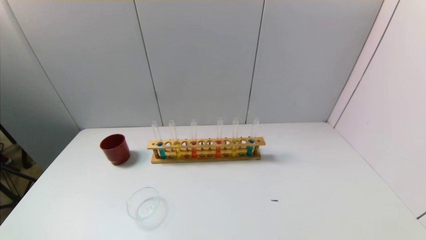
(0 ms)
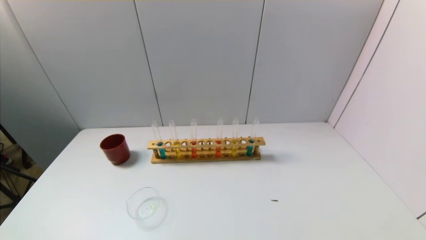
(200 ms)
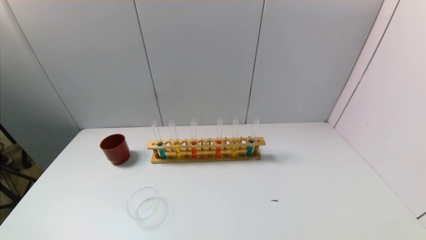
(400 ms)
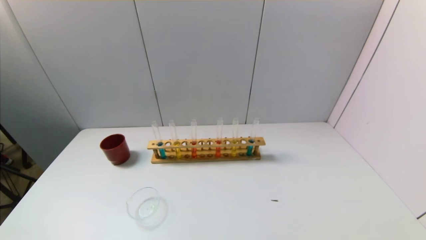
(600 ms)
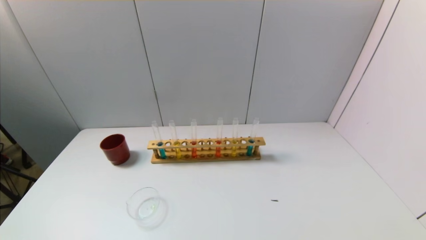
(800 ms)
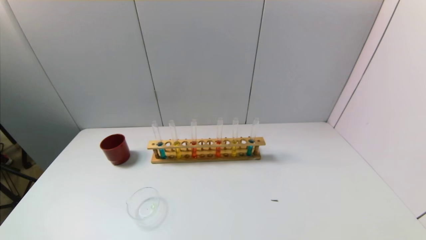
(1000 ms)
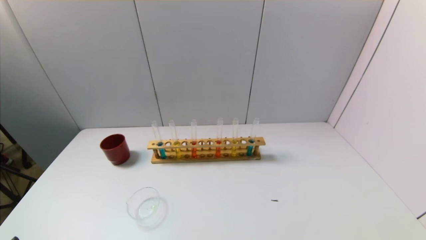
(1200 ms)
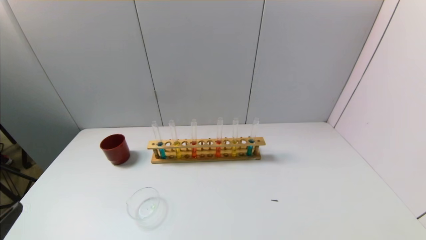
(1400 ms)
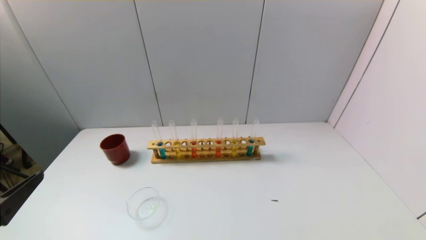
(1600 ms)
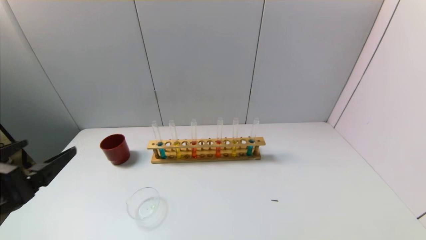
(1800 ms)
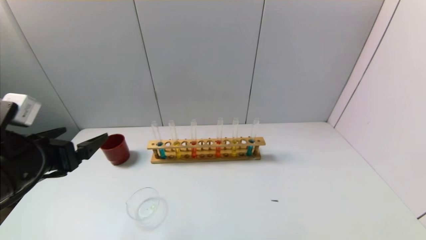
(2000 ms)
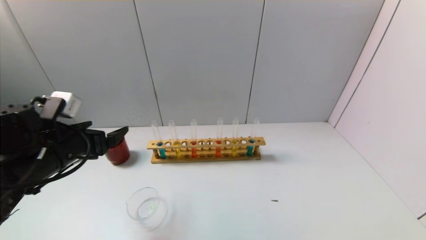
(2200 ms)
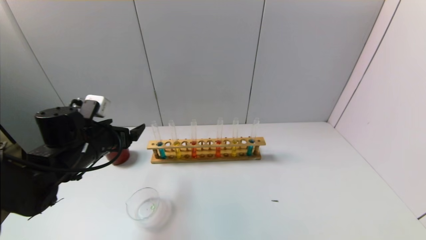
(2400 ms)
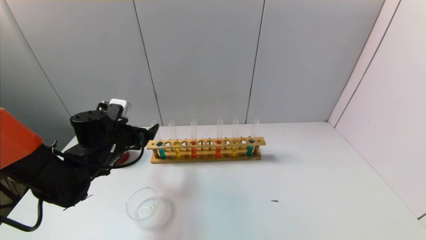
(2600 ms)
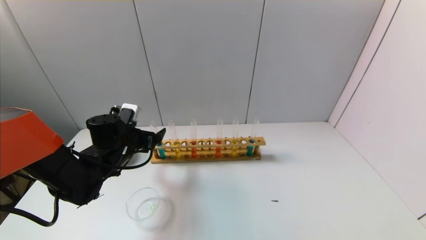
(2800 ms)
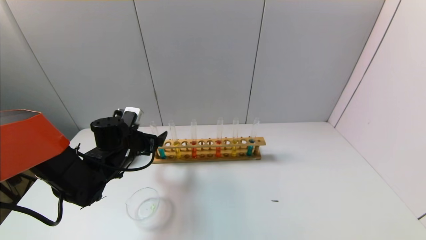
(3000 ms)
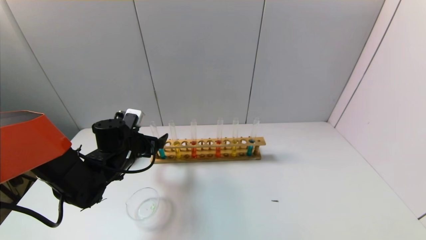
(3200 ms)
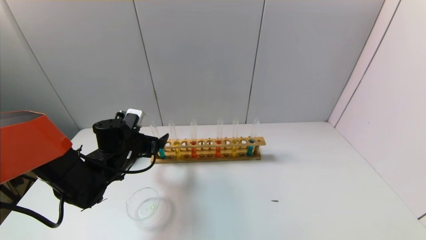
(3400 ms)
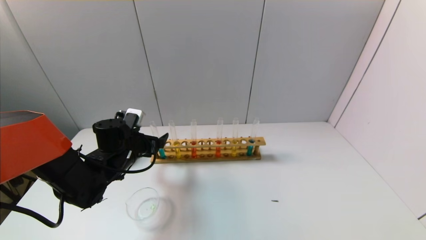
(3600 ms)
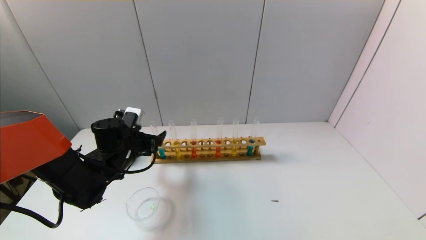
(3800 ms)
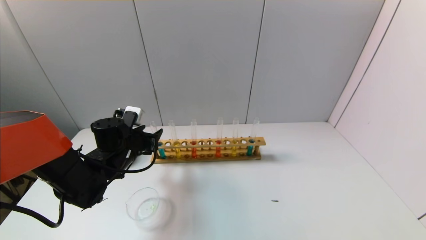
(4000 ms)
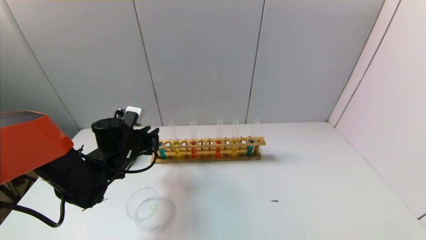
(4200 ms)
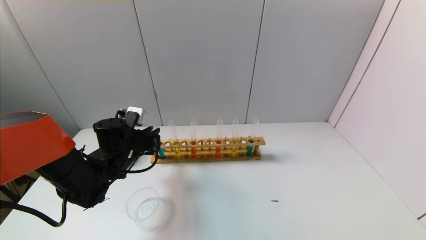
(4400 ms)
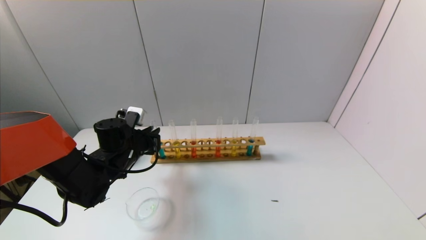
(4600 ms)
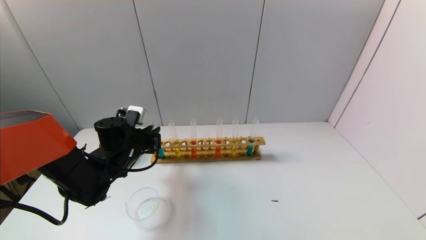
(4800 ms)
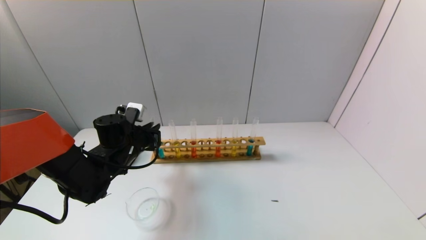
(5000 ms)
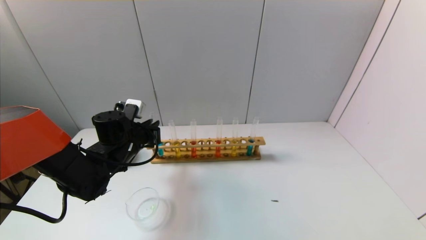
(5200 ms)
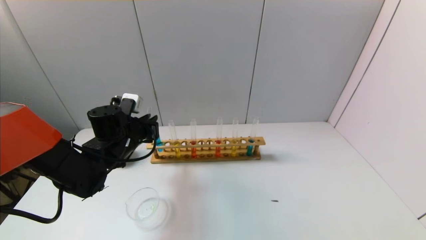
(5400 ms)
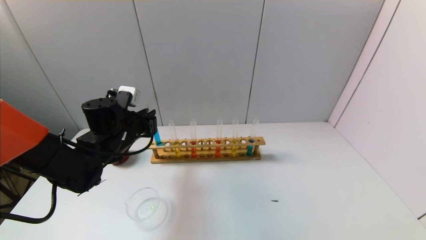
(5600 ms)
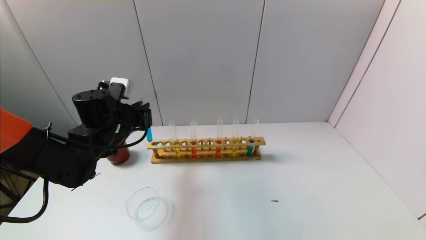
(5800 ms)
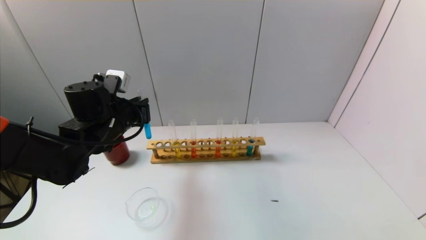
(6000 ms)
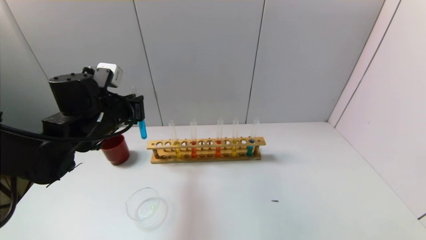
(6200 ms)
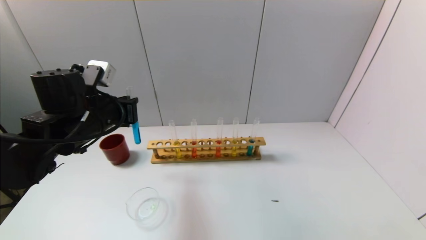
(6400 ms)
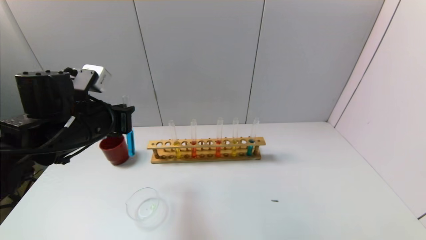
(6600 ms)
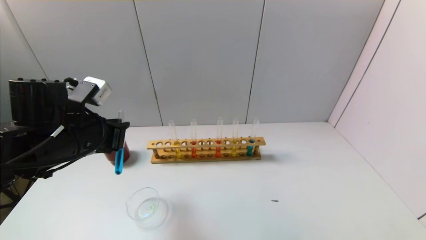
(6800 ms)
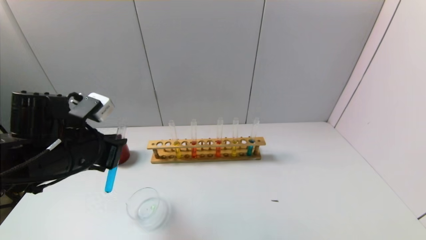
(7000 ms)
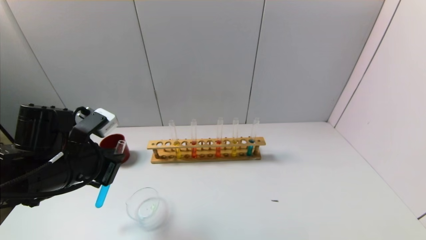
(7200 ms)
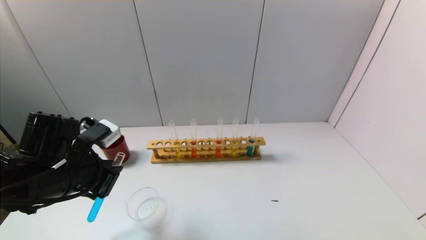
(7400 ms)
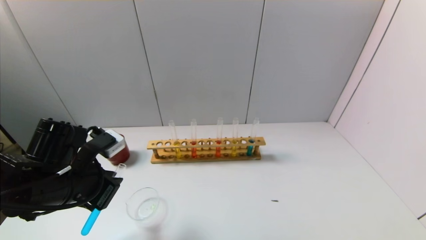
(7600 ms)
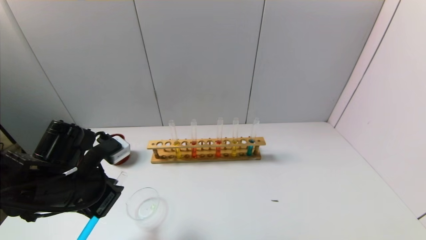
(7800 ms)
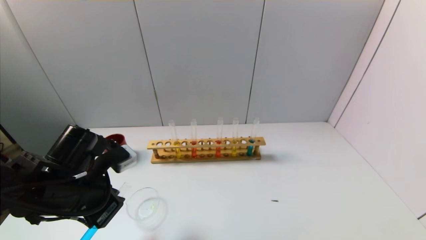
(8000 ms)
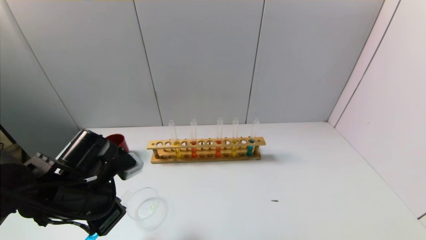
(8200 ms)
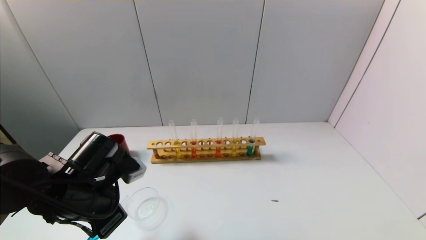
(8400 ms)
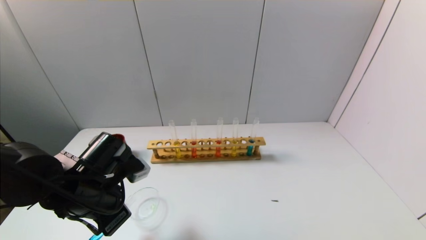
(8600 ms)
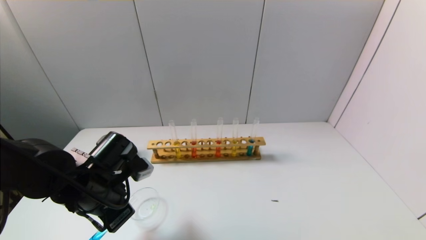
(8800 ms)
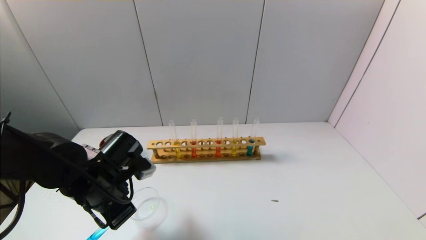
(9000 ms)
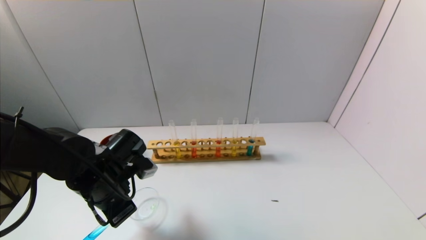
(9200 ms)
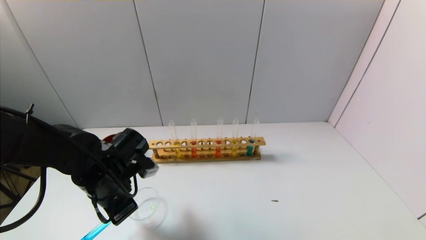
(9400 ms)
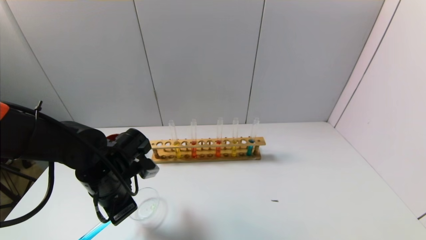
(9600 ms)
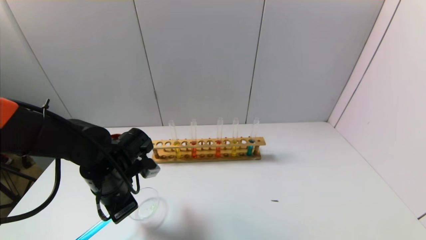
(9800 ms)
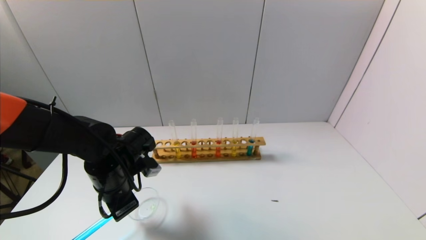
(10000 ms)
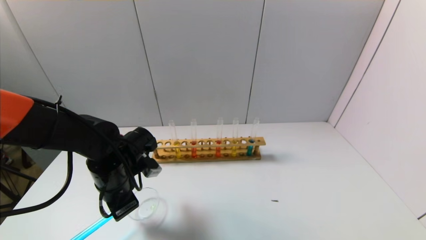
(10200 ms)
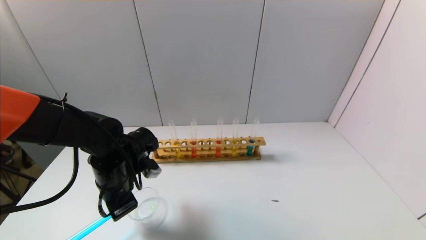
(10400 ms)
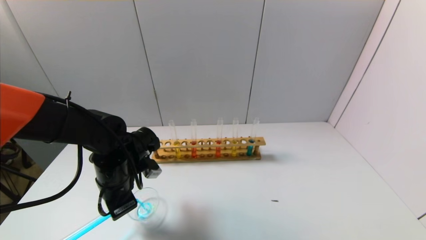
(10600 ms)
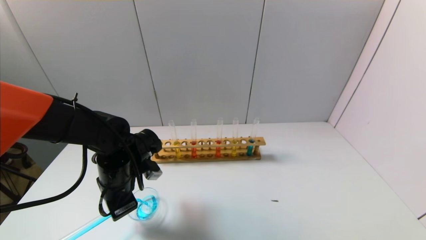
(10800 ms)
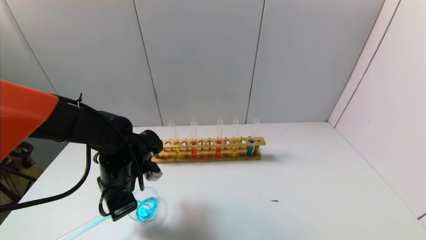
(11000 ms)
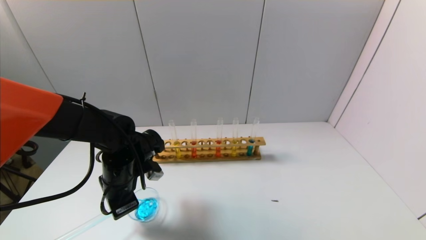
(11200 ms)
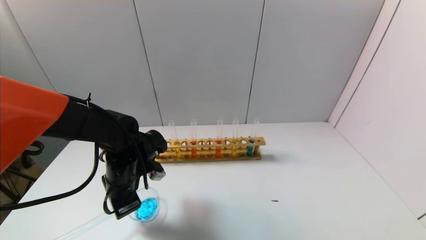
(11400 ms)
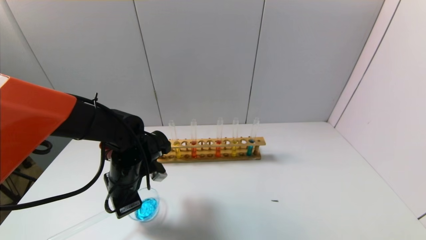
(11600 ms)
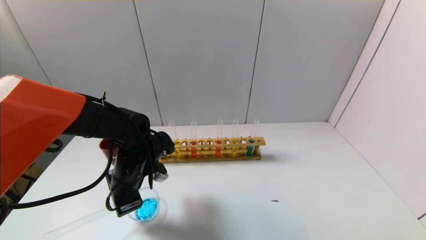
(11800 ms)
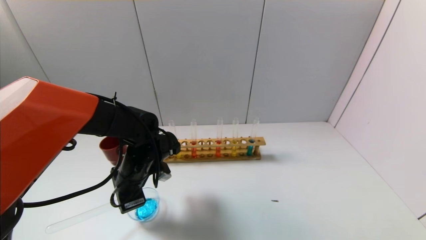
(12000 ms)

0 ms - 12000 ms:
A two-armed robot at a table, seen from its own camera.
Task of the whole recording: pick up the test tube with yellow pigment and the test tube with blue pigment by grippers and pour them into the beaker.
Step, 0 ms - 4400 ms: Grasp the blue reagent with the left gripper.
1600 ms - 3000 ms: The left gripper heads forward and downward, covering about 30 cm.
3000 ms - 4400 ms: The left gripper closes up.
4400 ms - 6000 ms: The left gripper goes some 10 cm upward.
6000 ms - 7600 ms: The left gripper travels backward by roughly 10 cm.
7600 ms - 9000 ms: The left gripper changes place by roughly 5 cm.
9000 ms - 10400 ms: The grippers make only small movements.
10400 ms - 12000 ms: The grippers stay close to where they were, moving slightly.

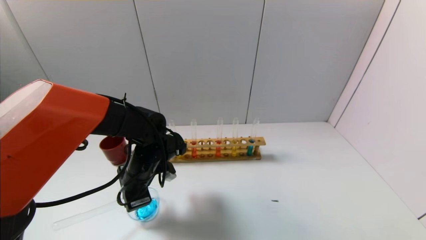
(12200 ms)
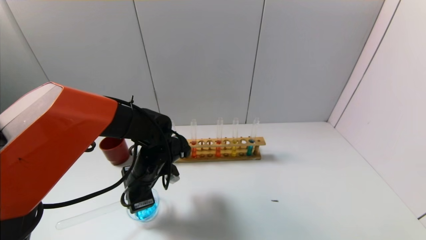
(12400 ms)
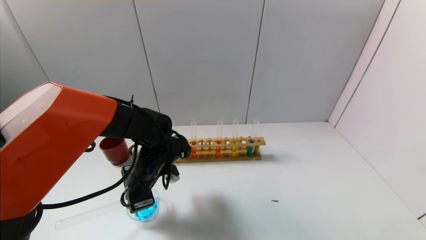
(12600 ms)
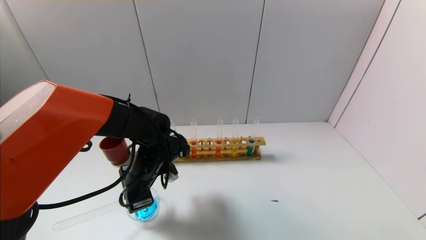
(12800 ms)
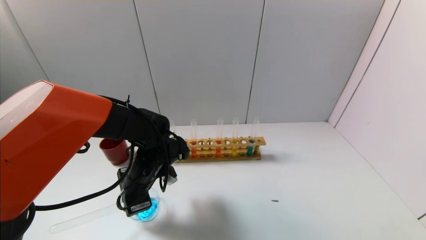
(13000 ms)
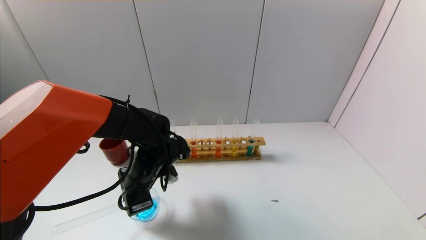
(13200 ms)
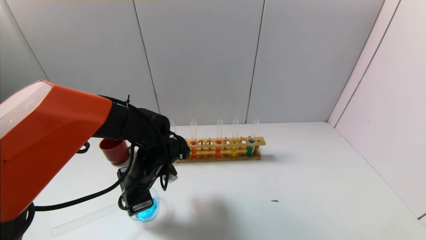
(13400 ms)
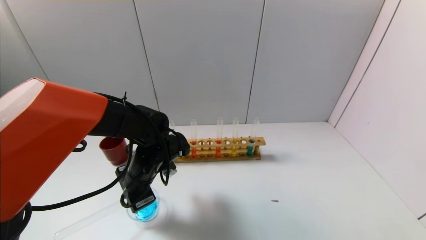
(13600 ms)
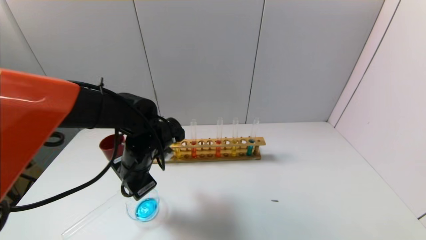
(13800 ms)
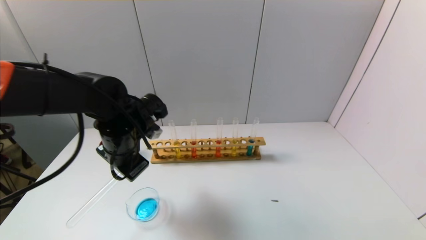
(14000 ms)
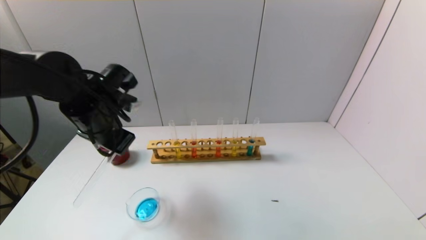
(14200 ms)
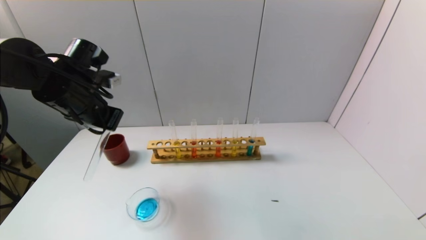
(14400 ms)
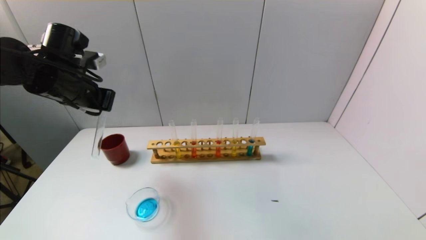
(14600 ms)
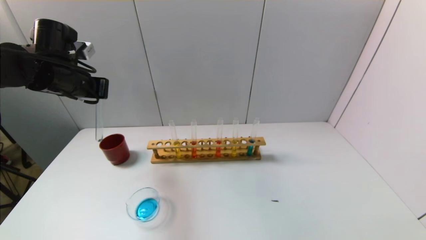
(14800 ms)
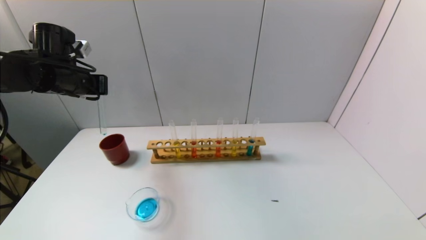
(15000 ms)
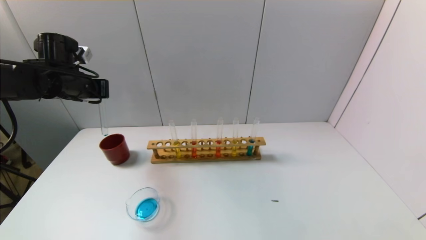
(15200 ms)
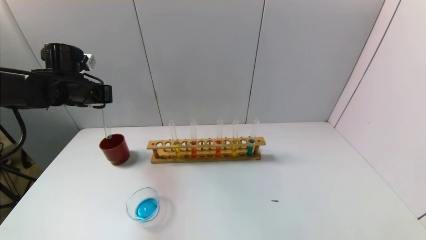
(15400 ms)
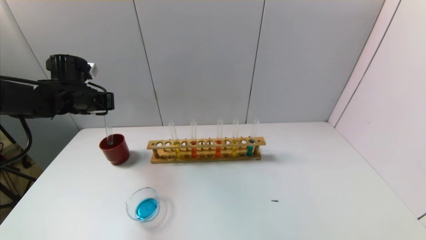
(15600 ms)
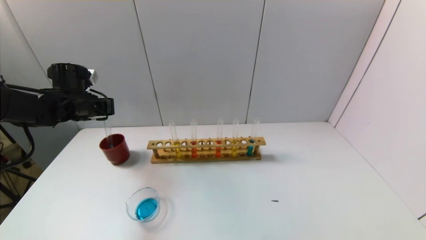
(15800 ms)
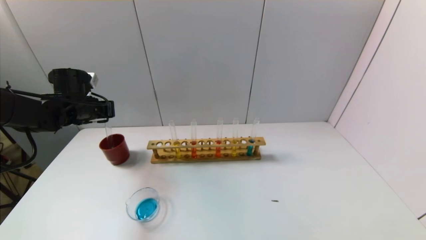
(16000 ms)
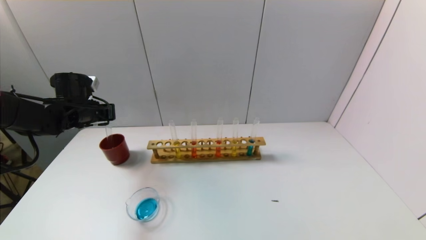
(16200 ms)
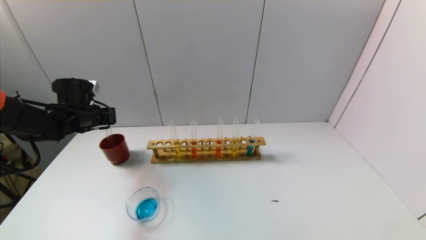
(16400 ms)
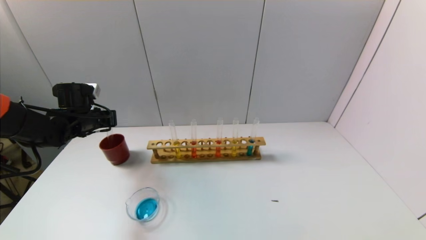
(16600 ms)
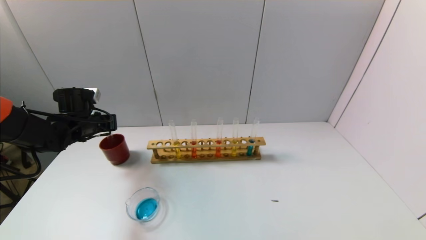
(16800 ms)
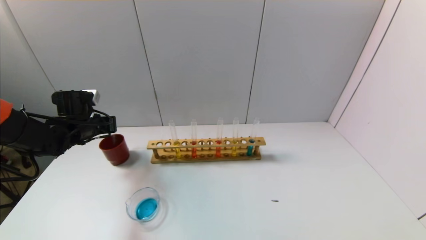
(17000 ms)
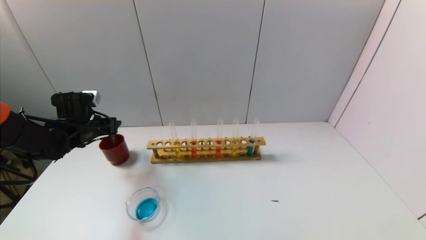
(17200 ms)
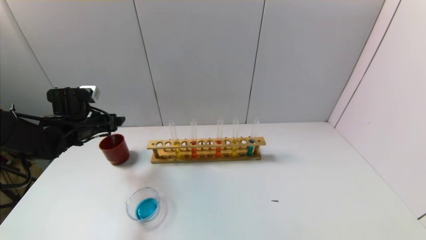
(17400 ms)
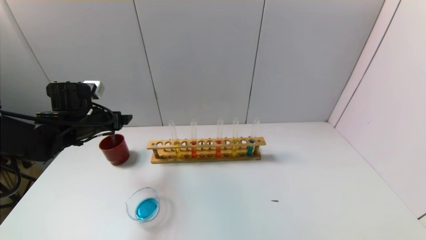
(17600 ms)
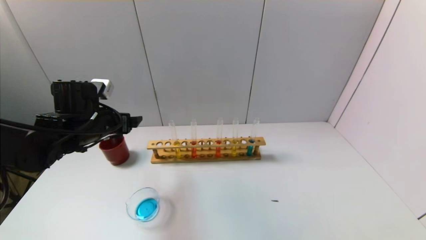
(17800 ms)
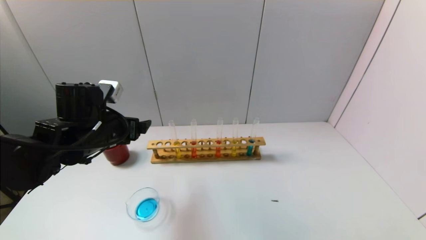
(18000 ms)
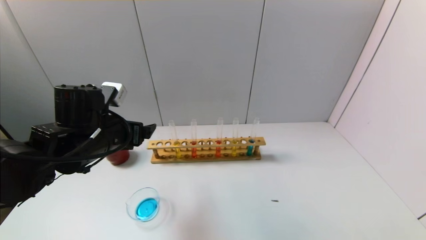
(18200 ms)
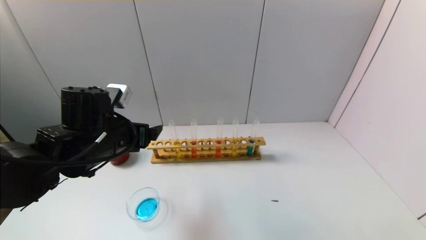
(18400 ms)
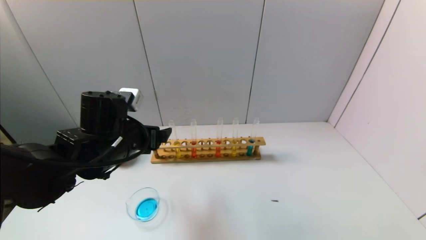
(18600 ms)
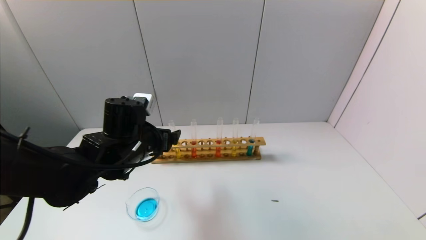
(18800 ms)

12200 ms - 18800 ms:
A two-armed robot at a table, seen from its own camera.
Task of the whole recording: pick up the test tube with yellow pigment and the test tube with blue pigment by grippers and pour them into the beaker.
Step, 13600 ms - 17600 ms: Place the test tube into the brown cup with the left gripper.
13800 ms - 15400 ms: The left gripper goes roughly 20 cm to the left, forward and upward.
15400 ms - 17200 ms: The left gripper shifts about 10 cm downward, and opens.
17200 ms - 18800 ms: The left gripper goes some 20 cm to the right and backward.
